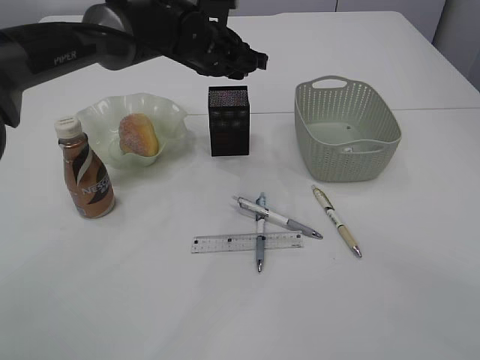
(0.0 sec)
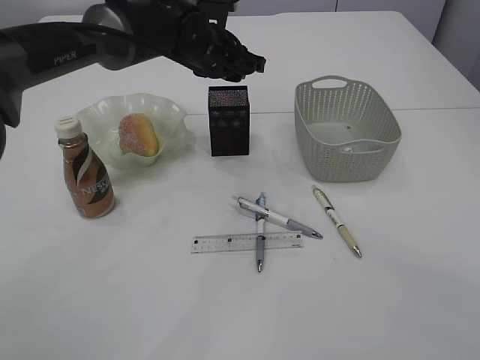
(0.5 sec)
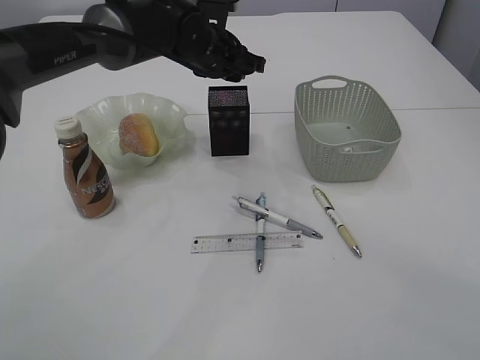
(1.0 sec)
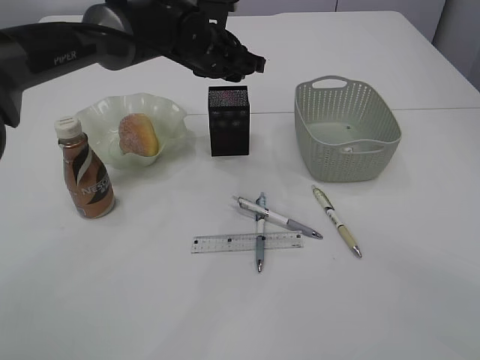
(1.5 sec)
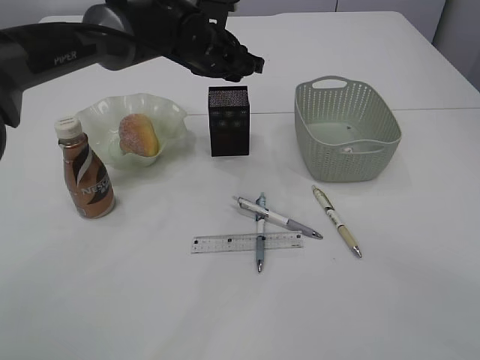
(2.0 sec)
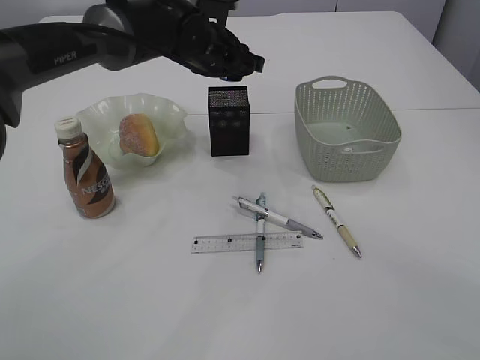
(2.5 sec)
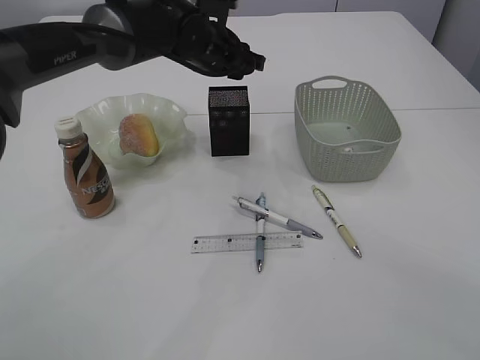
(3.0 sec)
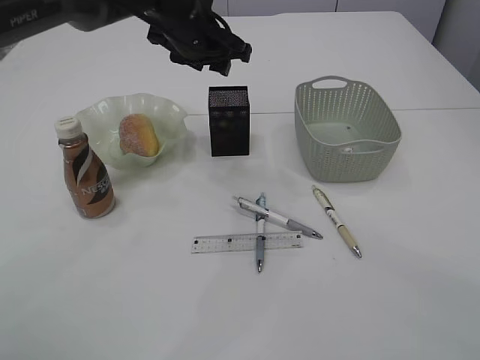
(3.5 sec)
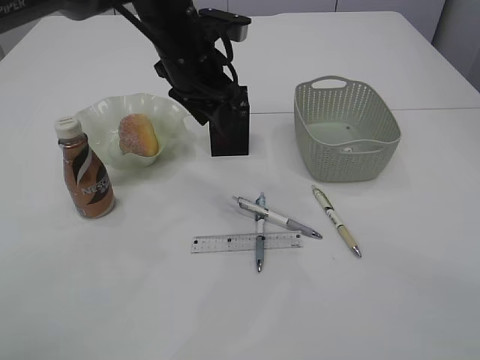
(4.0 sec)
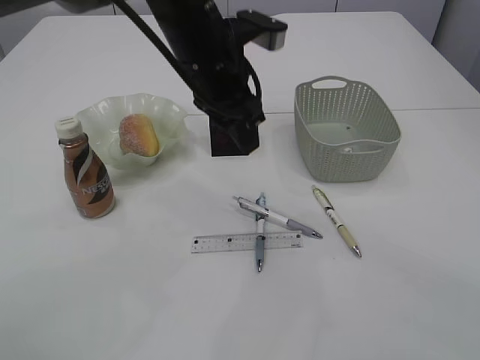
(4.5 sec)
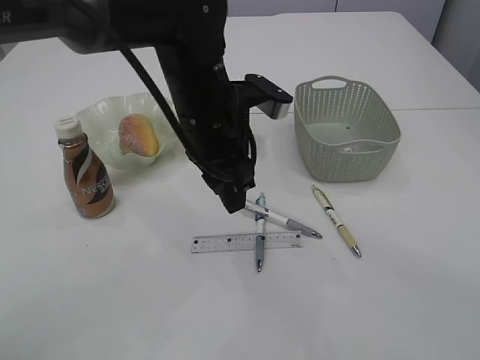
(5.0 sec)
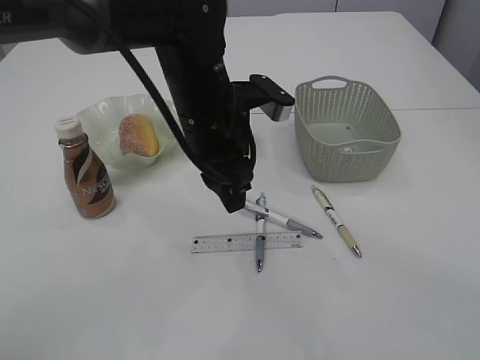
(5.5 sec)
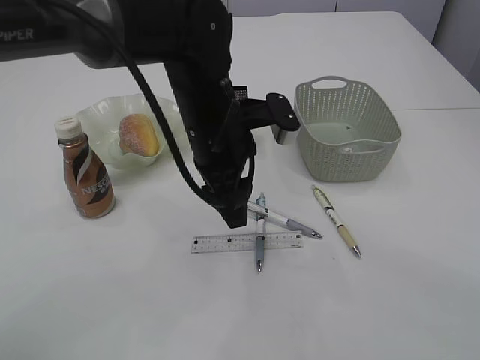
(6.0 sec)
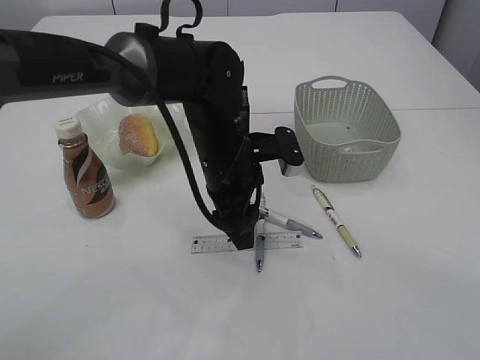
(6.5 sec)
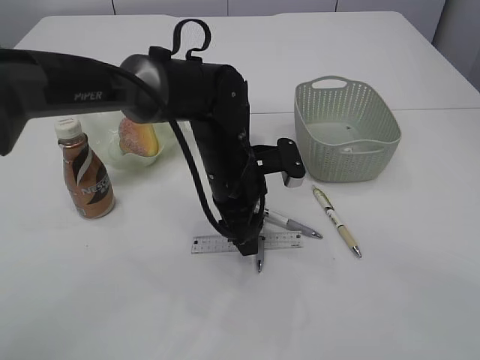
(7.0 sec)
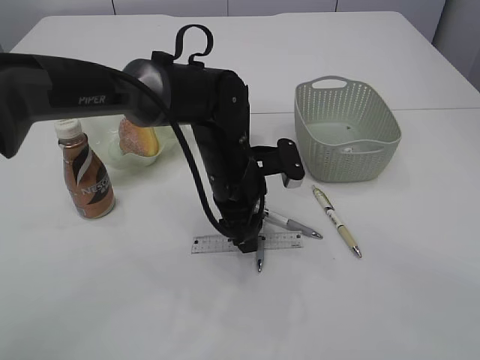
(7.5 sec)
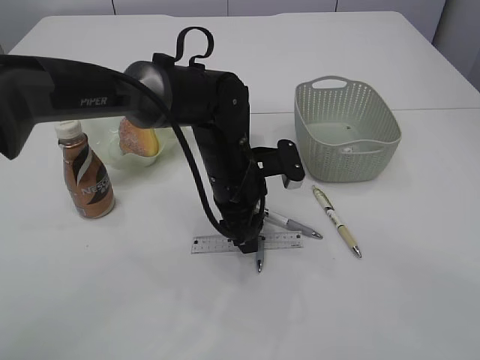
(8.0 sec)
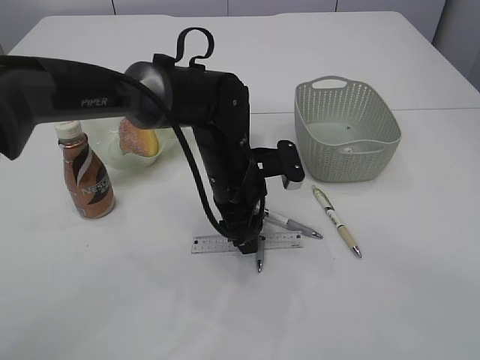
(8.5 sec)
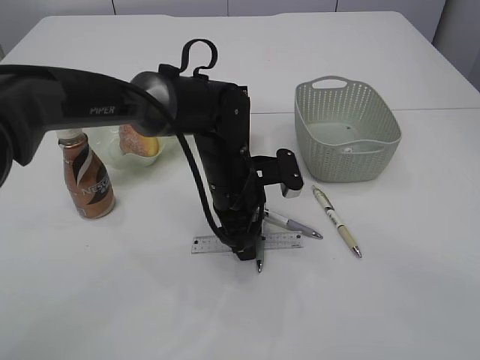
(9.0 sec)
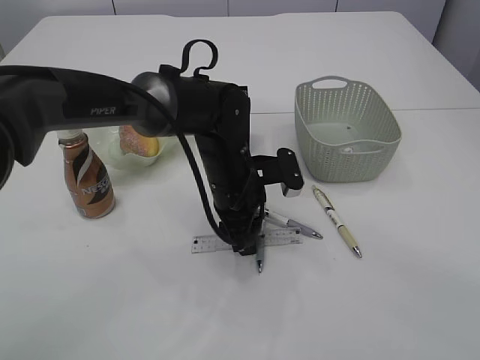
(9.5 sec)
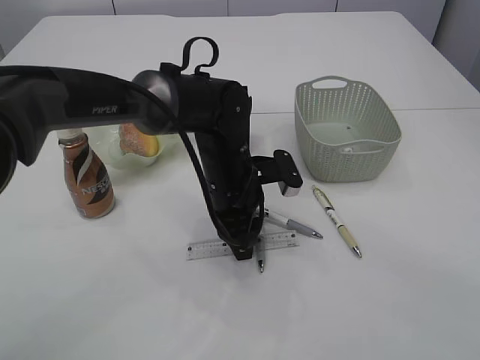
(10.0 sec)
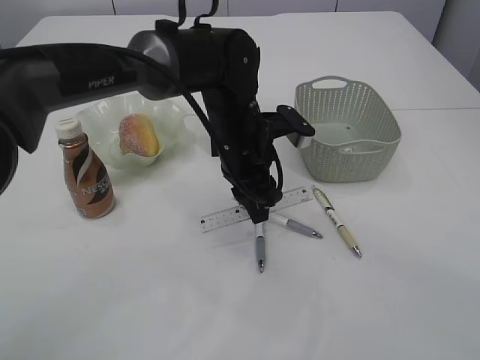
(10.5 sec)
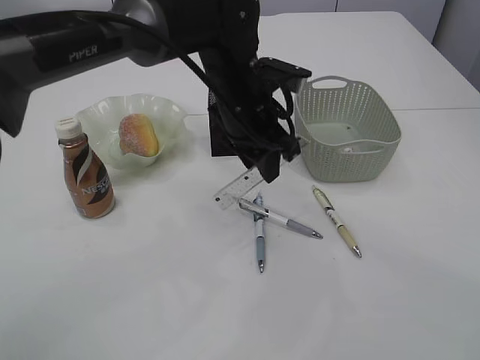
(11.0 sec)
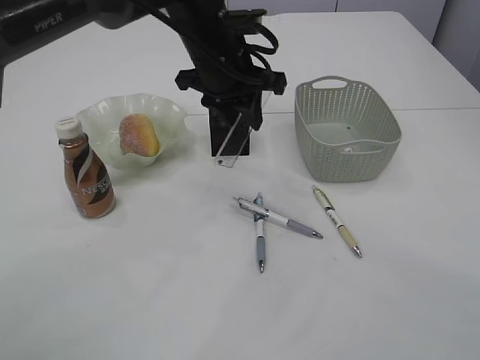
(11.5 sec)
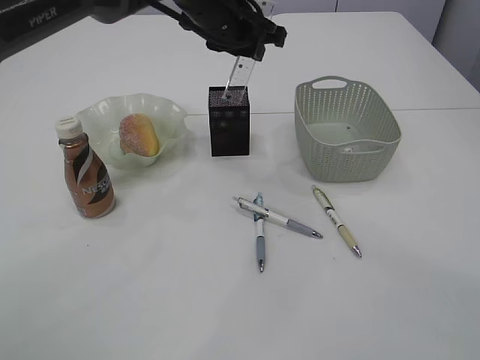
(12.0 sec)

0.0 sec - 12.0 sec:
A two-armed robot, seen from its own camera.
Step, 0.0 sec - 4.0 sec: Place the blue pencil sharpener into the pen holder.
Step, 4.5 sec - 10.5 sec: pick up the ruler.
0.0 sec - 2.0 sec: The two grippers keep their place.
2.0 sec - 4.0 sec: The left gripper is displaced backward by roughly 5 cm.
4.0 sec - 6.0 sec: The left gripper shifts roughly 10 cm backward.
6.0 sec - 8.0 sec: The left gripper goes some 10 cm downward.
8.0 sec - 10.0 sec: The left gripper closes its fingers.
10.0 sec - 12.0 sec: The left gripper is displaced upward and forward by about 20 cm.

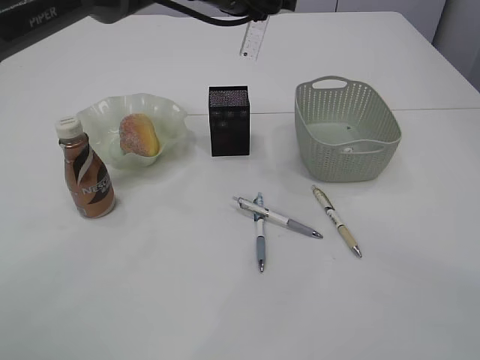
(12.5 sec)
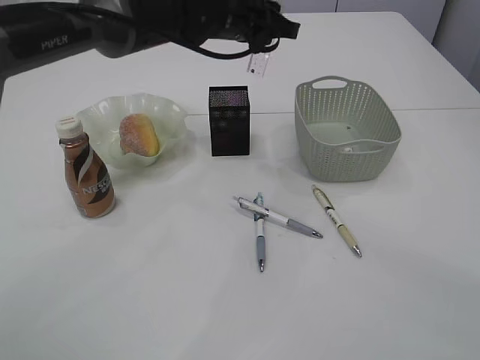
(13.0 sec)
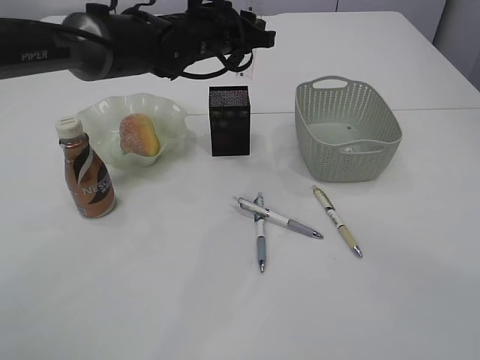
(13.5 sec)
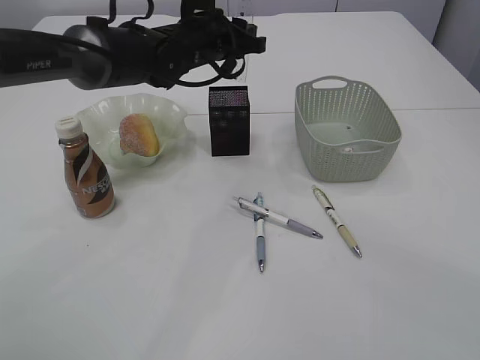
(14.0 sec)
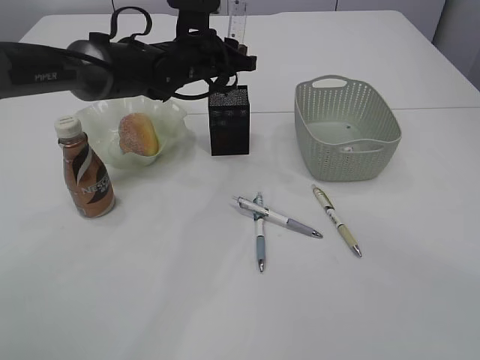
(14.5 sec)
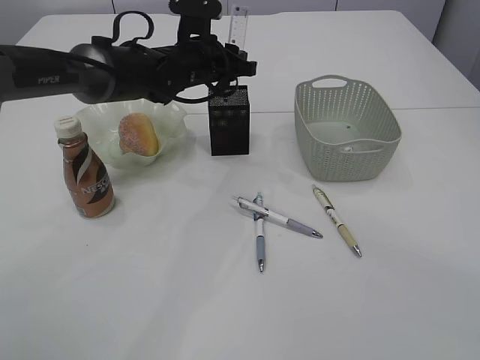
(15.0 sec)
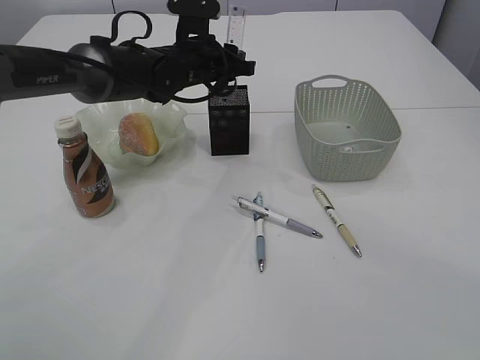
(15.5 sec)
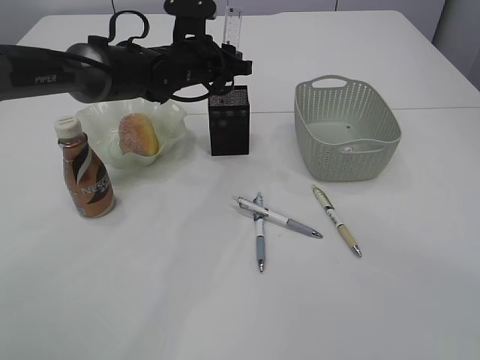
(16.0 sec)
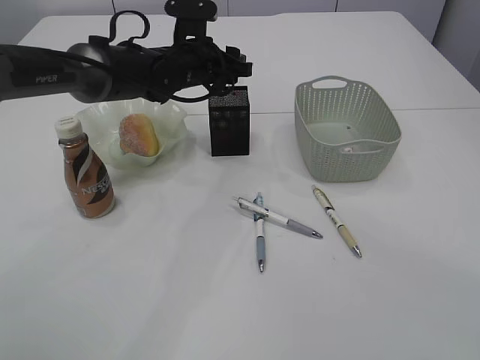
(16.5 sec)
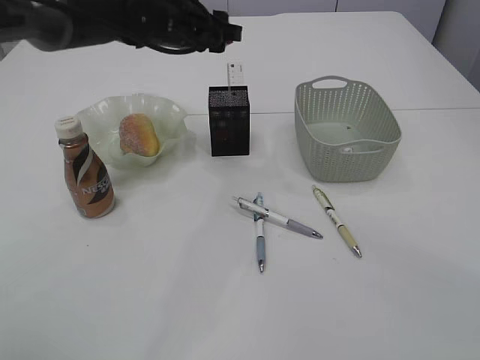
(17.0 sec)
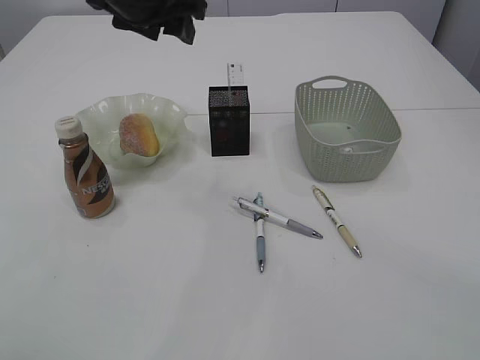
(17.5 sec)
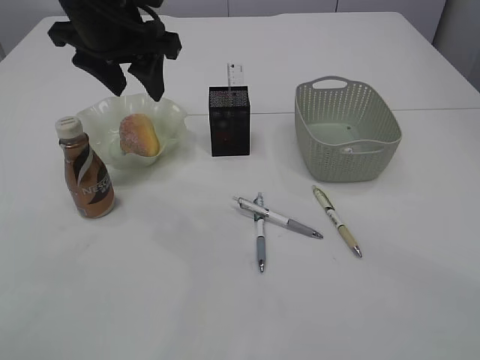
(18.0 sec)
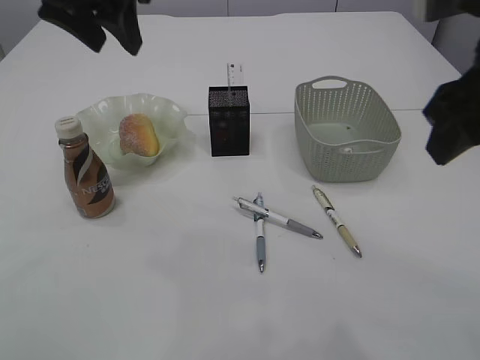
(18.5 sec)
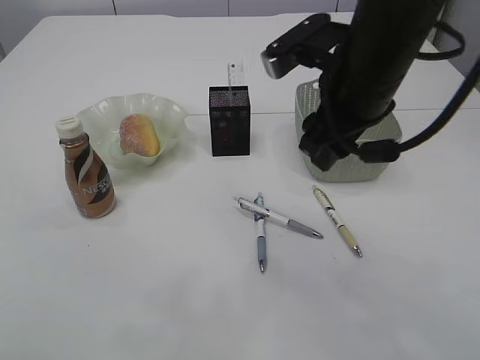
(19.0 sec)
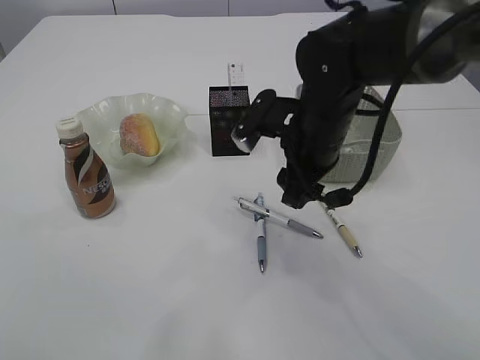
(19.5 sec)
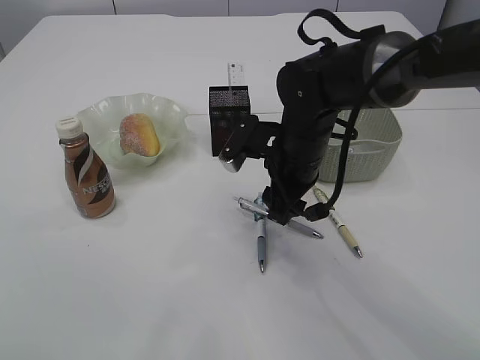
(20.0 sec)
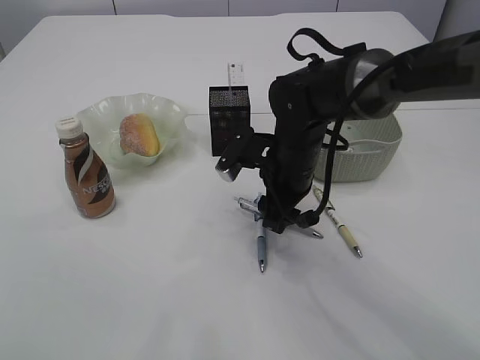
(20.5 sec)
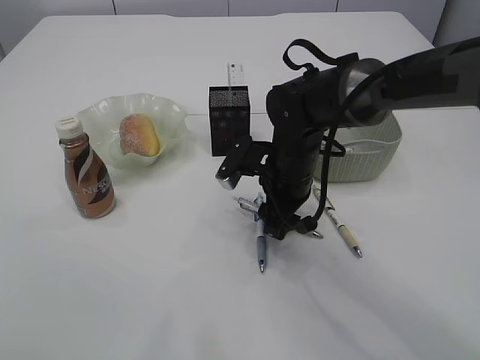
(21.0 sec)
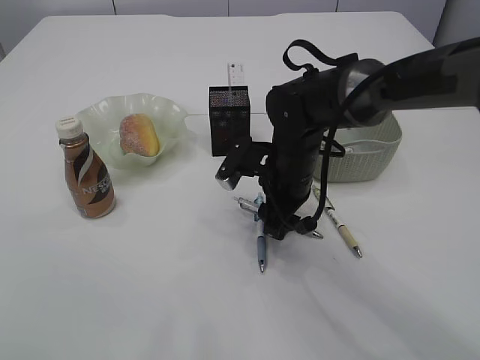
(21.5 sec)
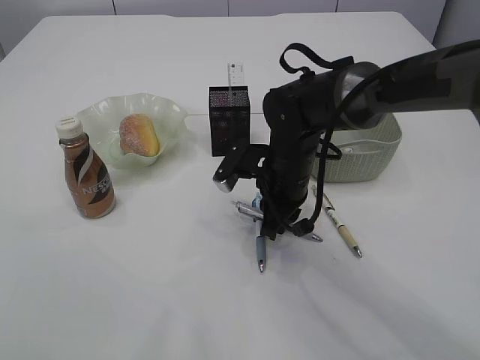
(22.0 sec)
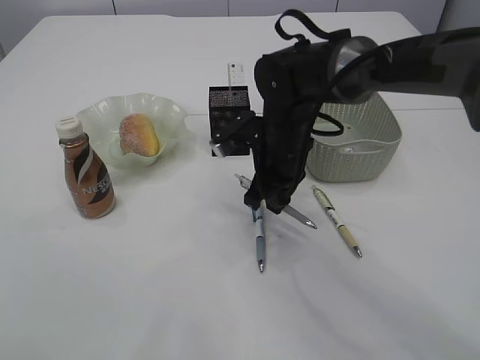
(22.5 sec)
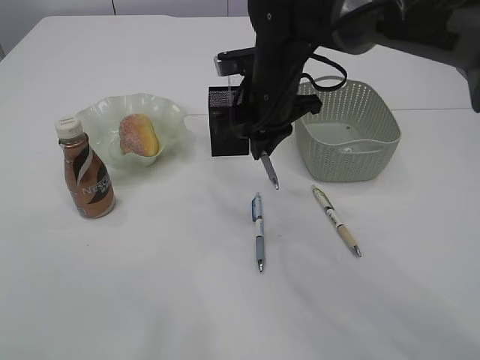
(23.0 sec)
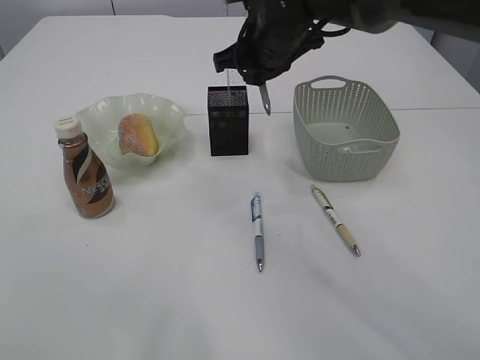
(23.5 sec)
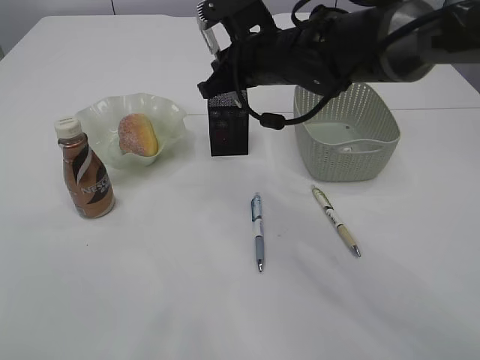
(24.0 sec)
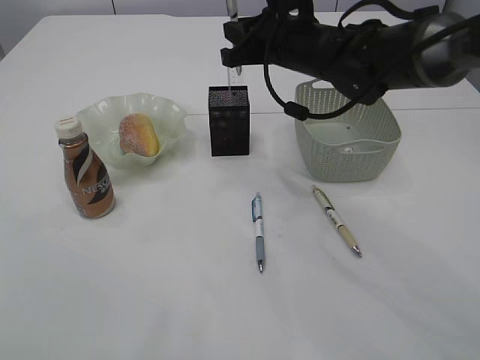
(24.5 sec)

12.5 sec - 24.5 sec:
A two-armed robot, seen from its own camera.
Step, 12.5 sec - 17.0 sec: Place the ruler into the pen holder.
Step, 17.5 sec - 22.5 sec: Pick up the pen with right arm.
12.5 sec - 14.5 sec: The left gripper is displaced downward by roughly 10 cm.
14.5 sec - 16.5 sec: The left gripper opens.
16.5 sec - 18.5 sec: The left gripper goes approximately 25 cm upward, backward and to the left. Meanwhile the right gripper shifts about 5 cm to the left.
18.5 sec - 20.5 sec: The left gripper heads upward, backward and to the left, covering about 20 cm. Meanwhile the right gripper travels downward, forward and to the left by about 30 cm.
20.5 sec - 22.5 sec: The right gripper closes its fingers.
22.5 sec - 24.5 sec: The right gripper shifts roughly 10 cm upward and forward.

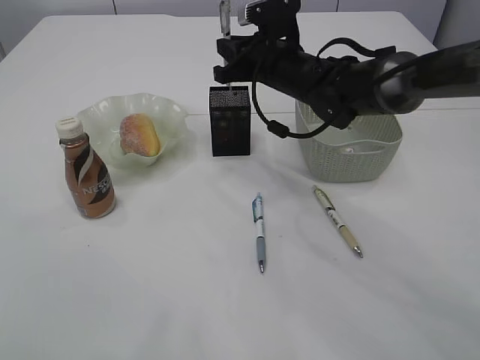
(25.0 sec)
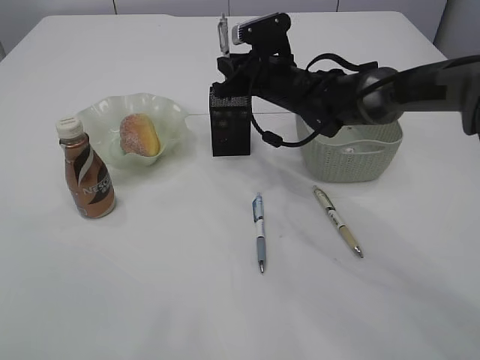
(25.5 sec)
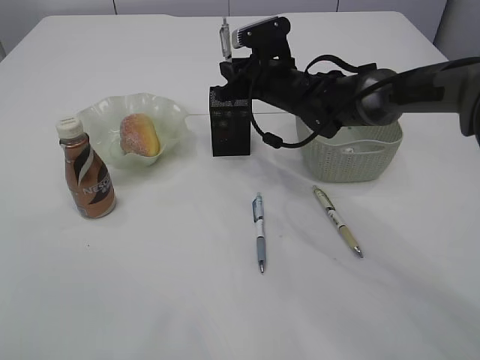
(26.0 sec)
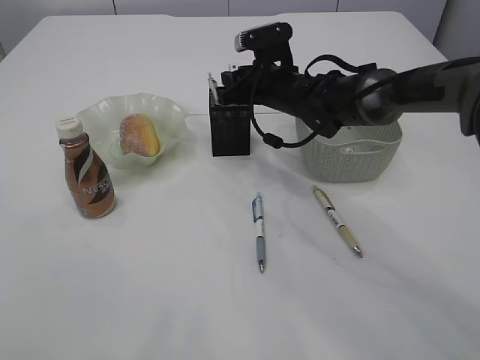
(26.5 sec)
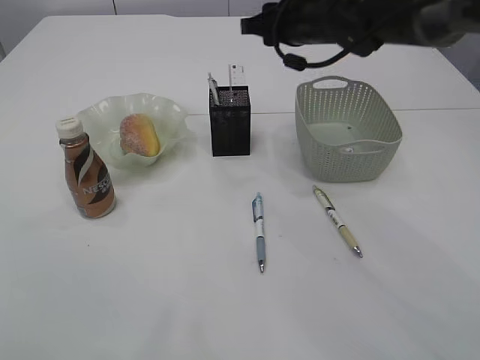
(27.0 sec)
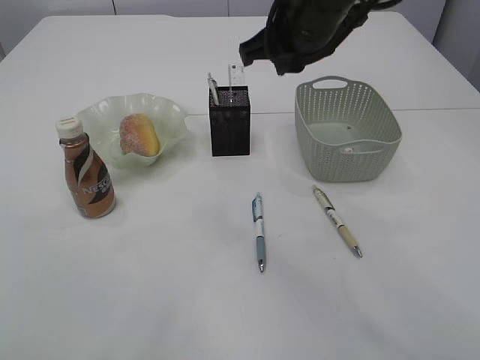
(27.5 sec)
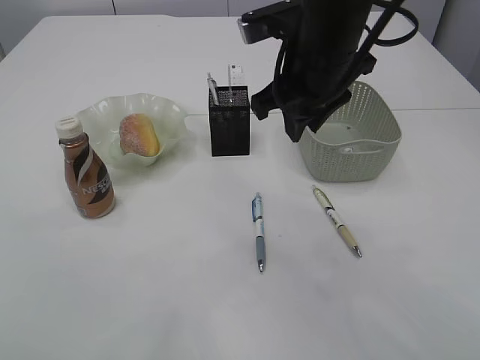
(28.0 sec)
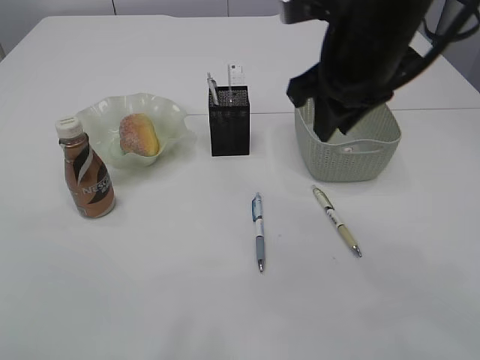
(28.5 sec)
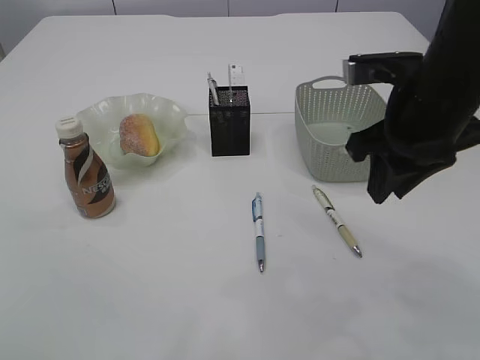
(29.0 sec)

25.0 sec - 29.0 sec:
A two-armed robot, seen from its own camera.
25.0 sec - 27.0 sec: The right gripper goes roughly 5 cm upward, and opens.
27.0 sec - 29.0 sec: The right gripper goes about 20 cm backward.
